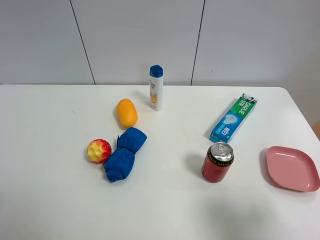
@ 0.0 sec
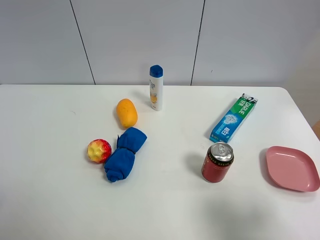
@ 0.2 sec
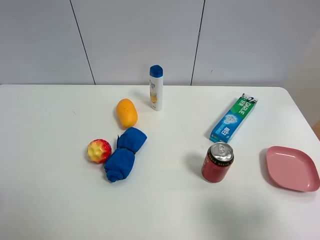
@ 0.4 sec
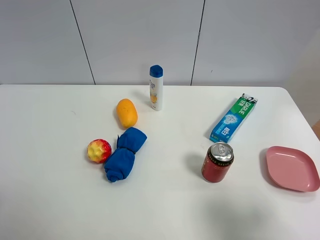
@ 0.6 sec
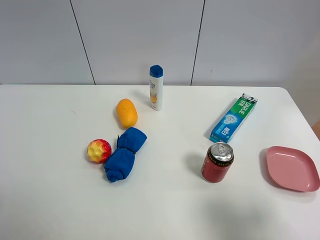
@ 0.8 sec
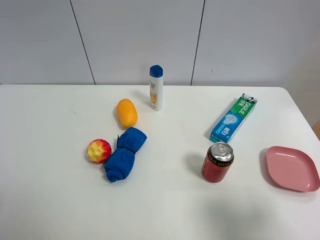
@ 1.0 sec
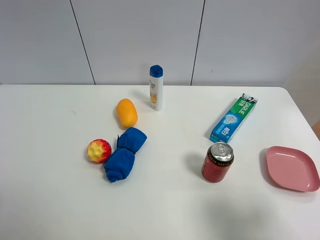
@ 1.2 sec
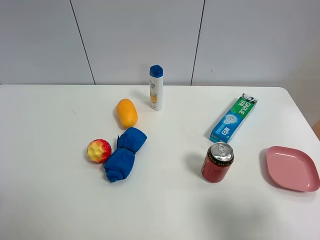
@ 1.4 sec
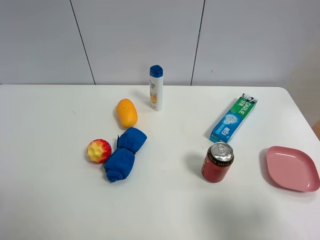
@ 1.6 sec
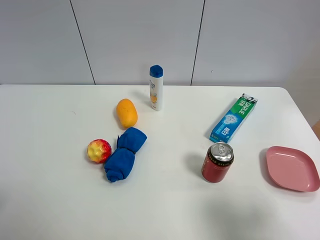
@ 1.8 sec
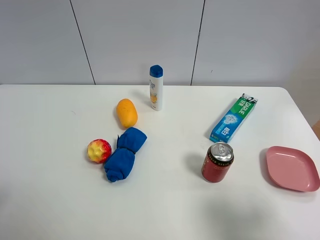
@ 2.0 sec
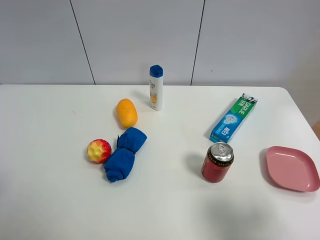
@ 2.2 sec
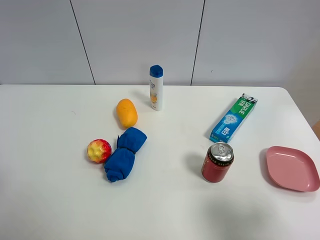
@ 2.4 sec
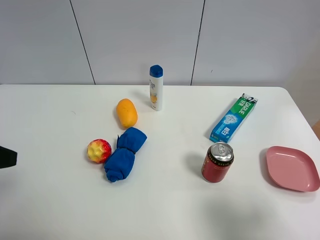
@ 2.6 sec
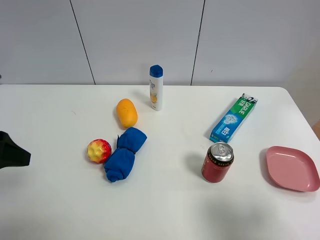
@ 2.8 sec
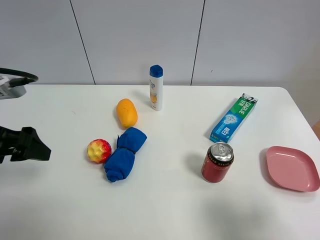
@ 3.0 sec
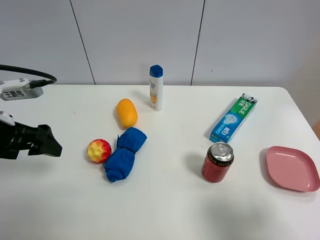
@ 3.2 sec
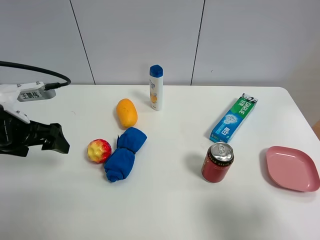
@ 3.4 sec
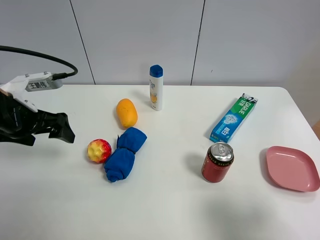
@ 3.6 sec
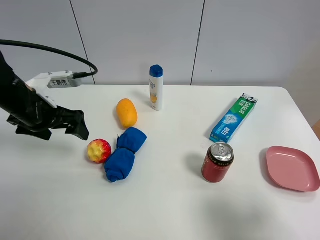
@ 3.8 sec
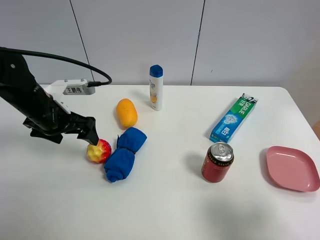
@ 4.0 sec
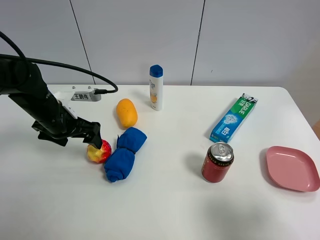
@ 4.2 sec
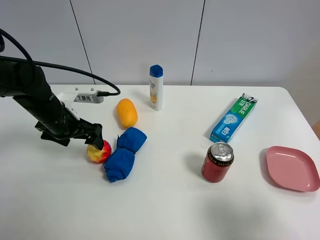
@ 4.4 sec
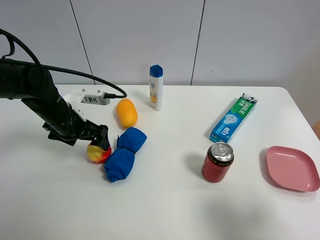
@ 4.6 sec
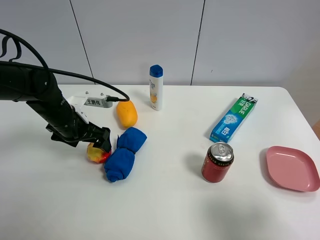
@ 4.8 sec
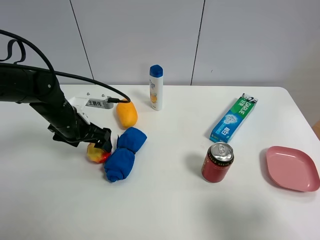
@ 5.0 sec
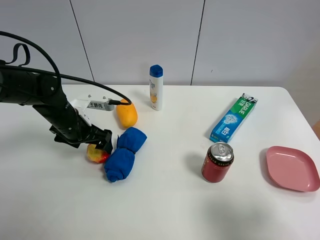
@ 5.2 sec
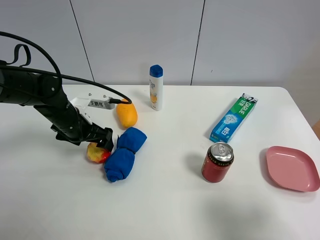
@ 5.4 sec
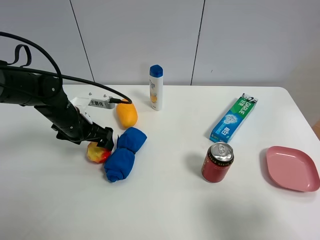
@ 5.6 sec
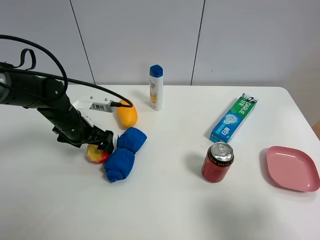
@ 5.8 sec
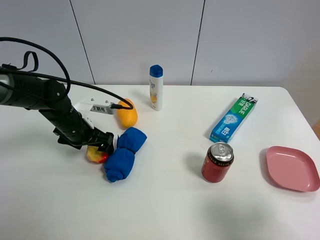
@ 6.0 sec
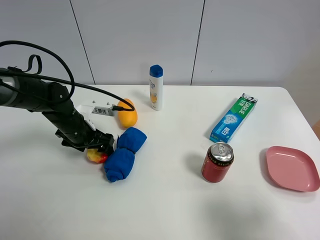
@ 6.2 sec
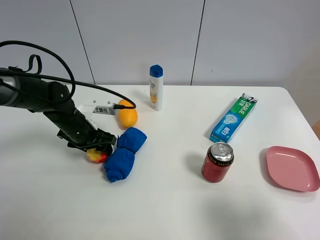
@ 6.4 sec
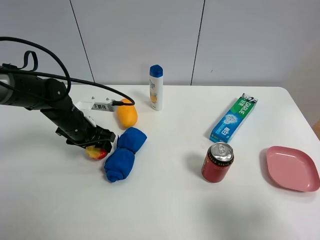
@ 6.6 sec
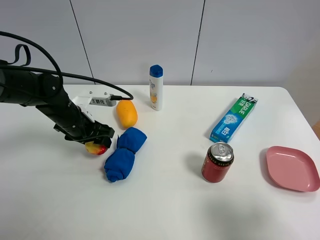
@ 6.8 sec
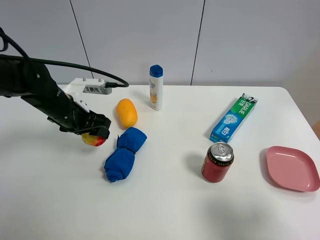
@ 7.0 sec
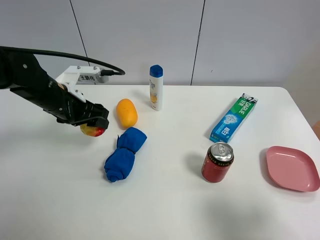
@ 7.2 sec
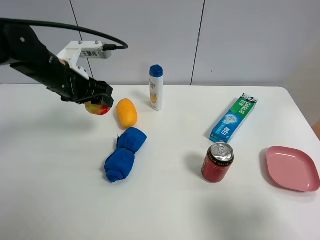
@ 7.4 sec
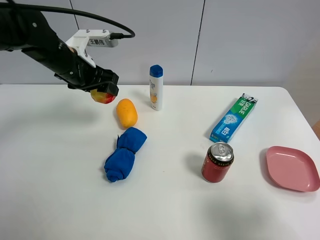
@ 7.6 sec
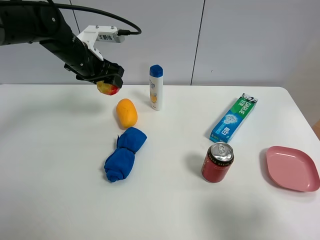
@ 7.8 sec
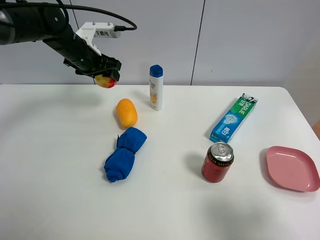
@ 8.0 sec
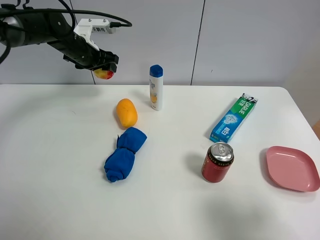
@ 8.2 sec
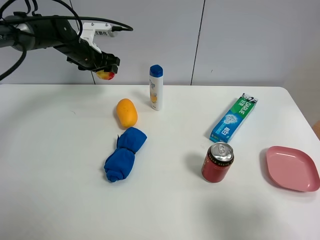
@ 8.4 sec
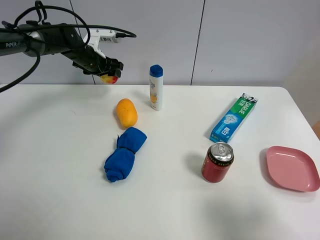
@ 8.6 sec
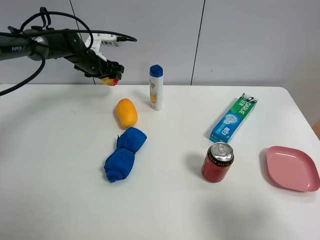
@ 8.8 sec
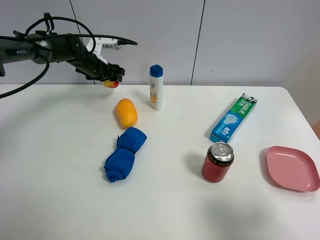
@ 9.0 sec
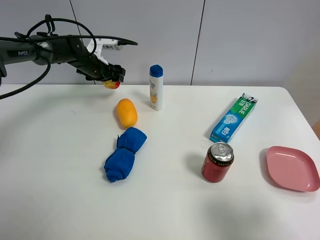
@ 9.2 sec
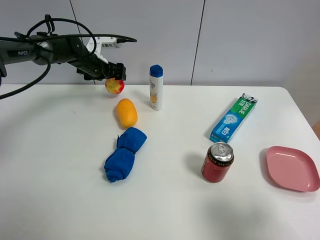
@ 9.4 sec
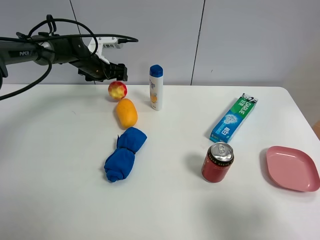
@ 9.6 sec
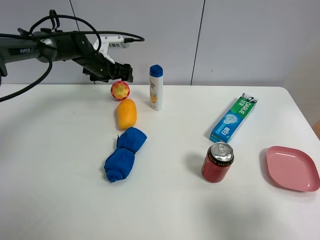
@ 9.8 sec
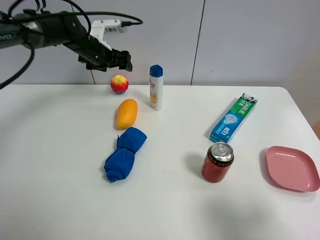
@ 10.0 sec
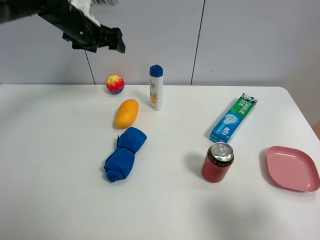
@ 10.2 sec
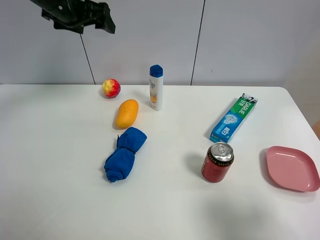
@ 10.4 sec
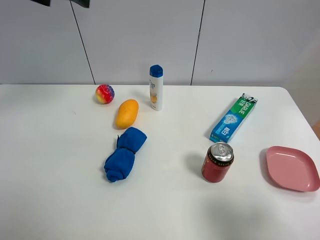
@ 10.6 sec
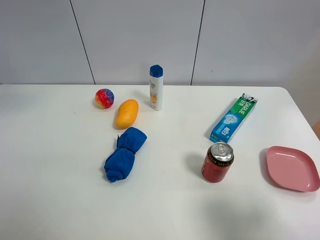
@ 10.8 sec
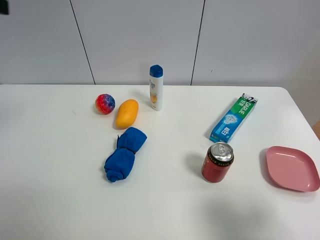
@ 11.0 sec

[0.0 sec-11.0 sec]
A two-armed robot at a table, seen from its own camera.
Task of the whole recording: the gripper move the object.
Step, 0.0 sec to 6.2 sec: Grasp the colorful ball with the left gripper.
Step, 6.4 sec to 9.6 sec: Place the colorful ball on the table with the left gripper.
0.0 sec to 1.6 sec: Both grippers stay about where they are.
1.6 sec to 3.2 sec: The left gripper shifts some 20 cm forward.
3.2 sec to 4.8 sec: The left gripper goes about 15 cm forward, downward and to the right.
4.8 sec to 6.2 sec: The left gripper closes its fingers.
6.2 sec to 7.8 sec: The left gripper is displaced upward and forward by roughly 15 cm, and closes its fingers.
7.8 sec to 9.4 sec: The left gripper is displaced forward and downward by approximately 15 cm, and opens its fingers.
9.4 sec to 11.0 sec: The left gripper is displaced backward and upward by about 40 cm.

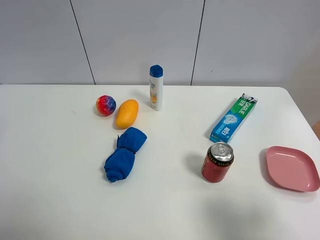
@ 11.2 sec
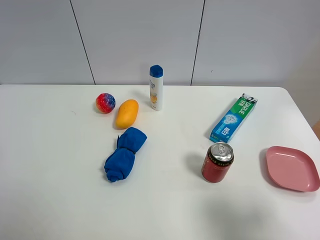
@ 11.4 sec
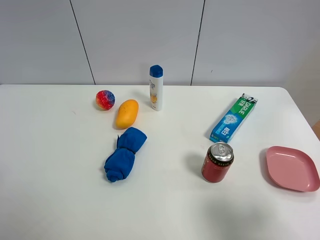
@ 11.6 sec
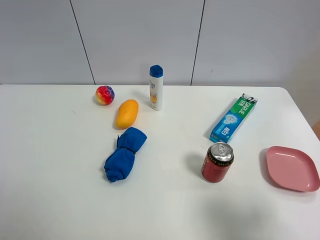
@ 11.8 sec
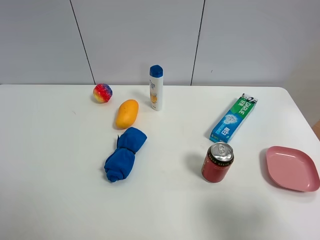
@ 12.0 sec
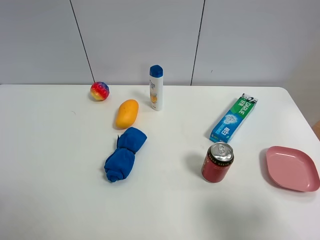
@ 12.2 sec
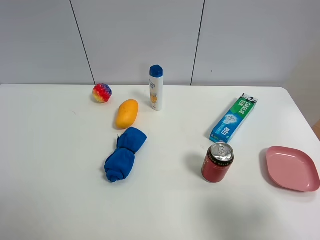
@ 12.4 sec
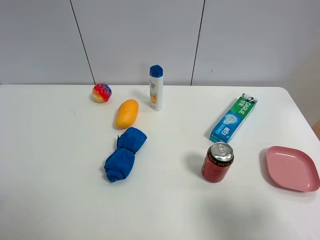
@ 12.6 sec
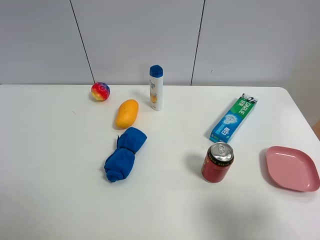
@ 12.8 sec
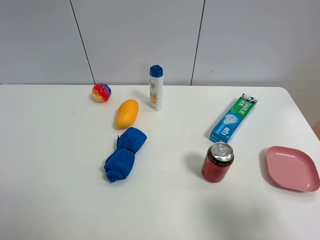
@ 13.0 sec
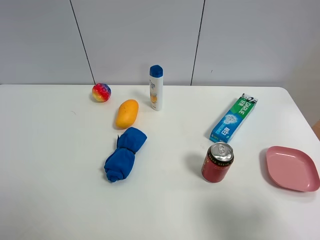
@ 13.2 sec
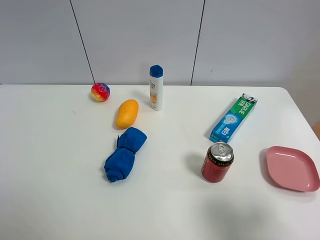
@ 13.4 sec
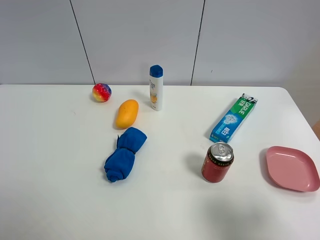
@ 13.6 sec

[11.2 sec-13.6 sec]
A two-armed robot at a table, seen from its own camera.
Task of the whole recording: the gripper move the object.
11.2 sec to 12.4 sec: The left gripper is displaced backward and downward by some 20 cm.

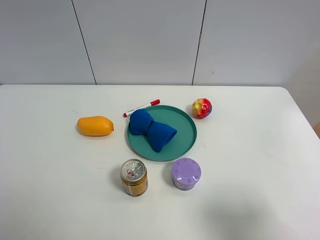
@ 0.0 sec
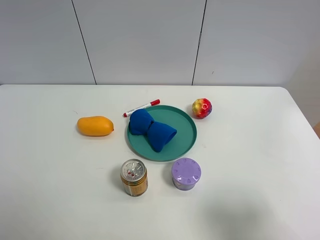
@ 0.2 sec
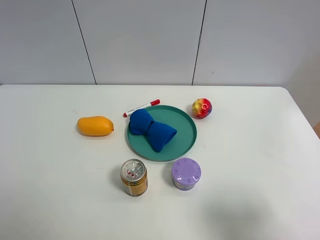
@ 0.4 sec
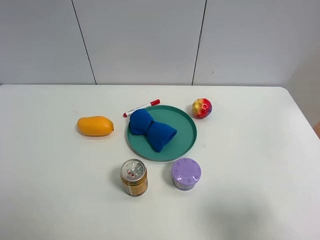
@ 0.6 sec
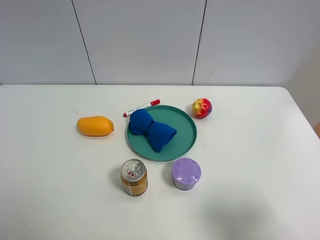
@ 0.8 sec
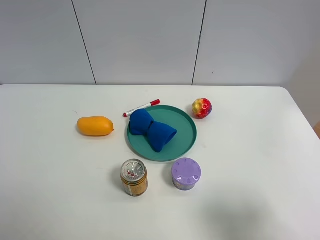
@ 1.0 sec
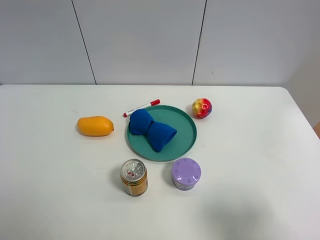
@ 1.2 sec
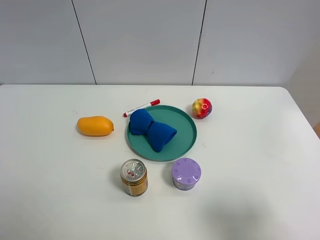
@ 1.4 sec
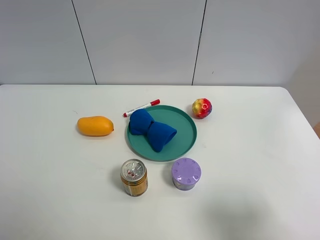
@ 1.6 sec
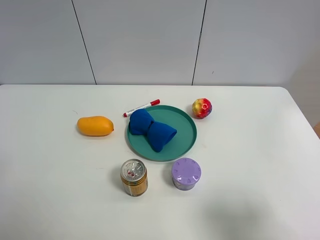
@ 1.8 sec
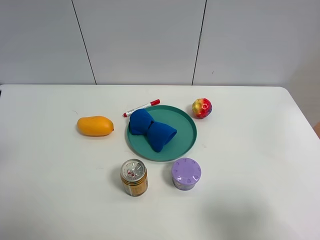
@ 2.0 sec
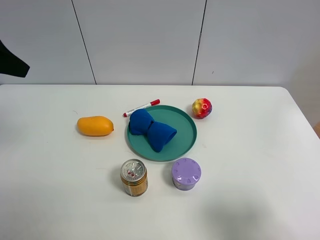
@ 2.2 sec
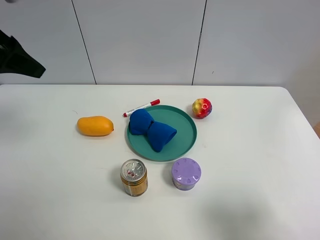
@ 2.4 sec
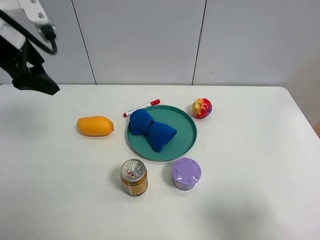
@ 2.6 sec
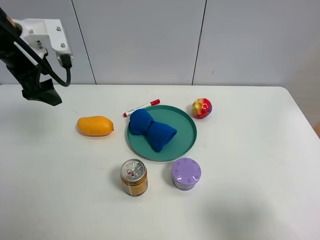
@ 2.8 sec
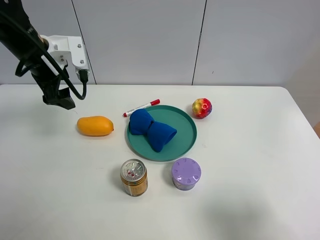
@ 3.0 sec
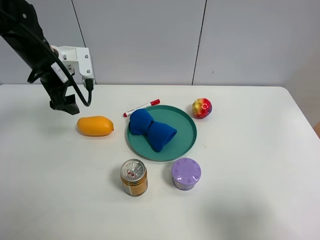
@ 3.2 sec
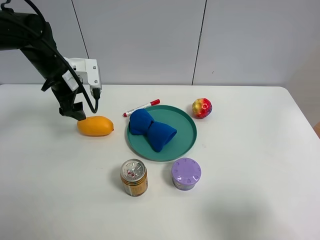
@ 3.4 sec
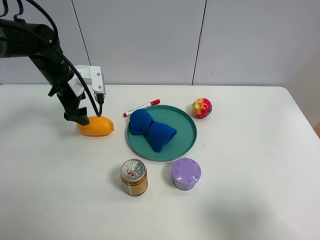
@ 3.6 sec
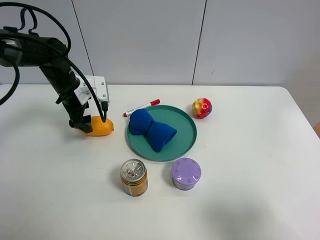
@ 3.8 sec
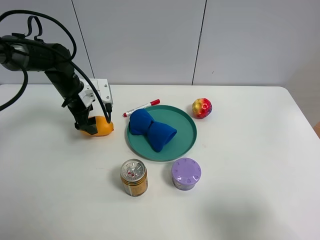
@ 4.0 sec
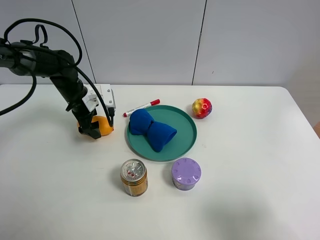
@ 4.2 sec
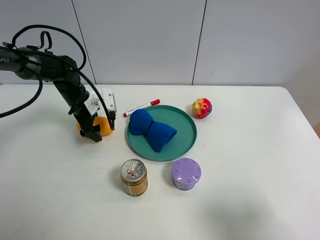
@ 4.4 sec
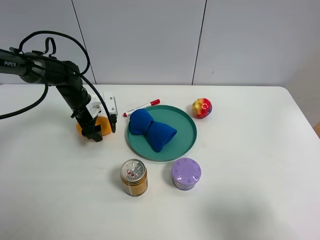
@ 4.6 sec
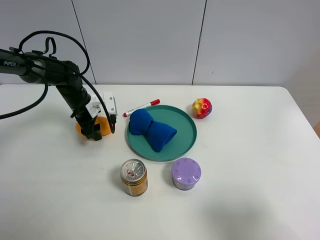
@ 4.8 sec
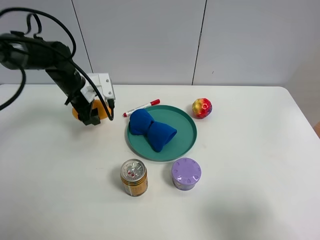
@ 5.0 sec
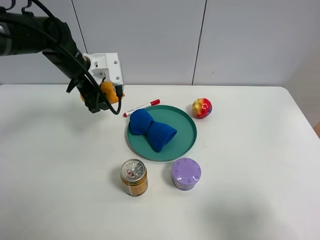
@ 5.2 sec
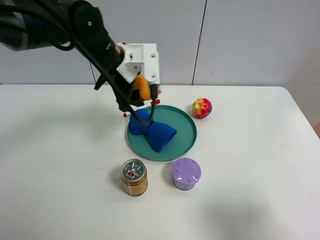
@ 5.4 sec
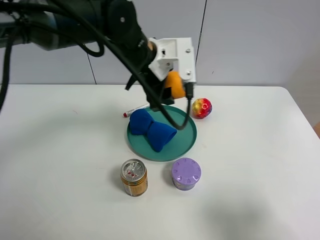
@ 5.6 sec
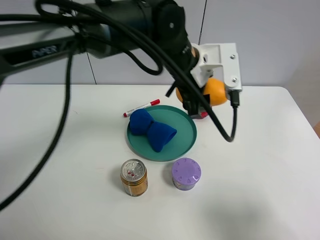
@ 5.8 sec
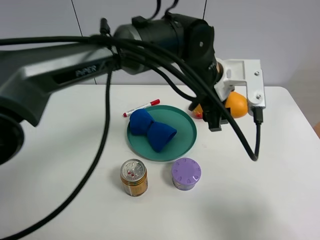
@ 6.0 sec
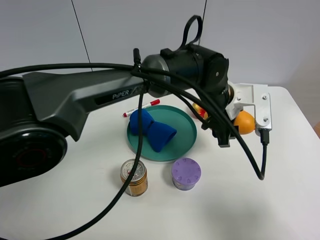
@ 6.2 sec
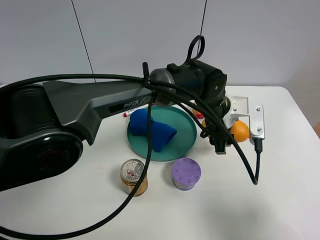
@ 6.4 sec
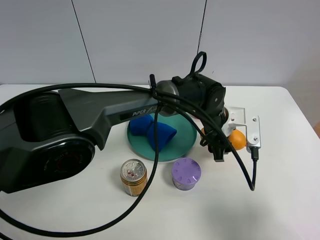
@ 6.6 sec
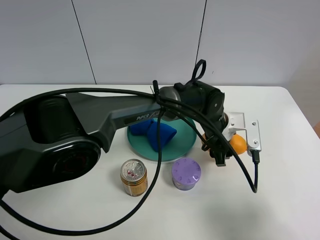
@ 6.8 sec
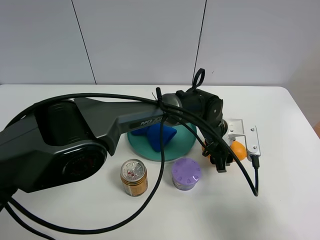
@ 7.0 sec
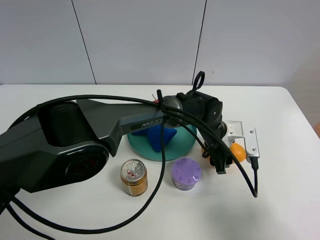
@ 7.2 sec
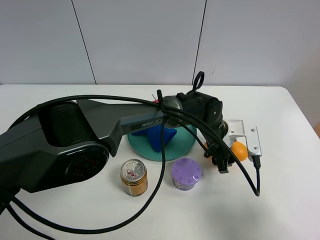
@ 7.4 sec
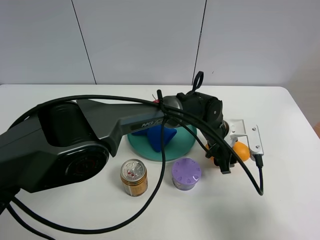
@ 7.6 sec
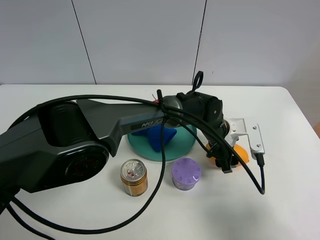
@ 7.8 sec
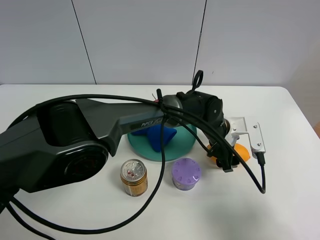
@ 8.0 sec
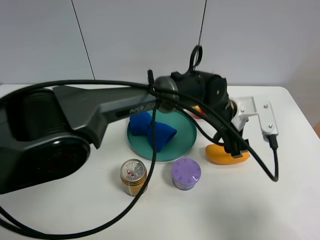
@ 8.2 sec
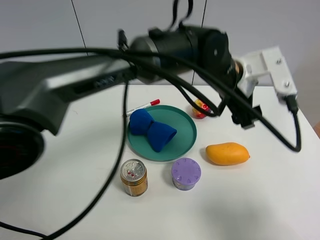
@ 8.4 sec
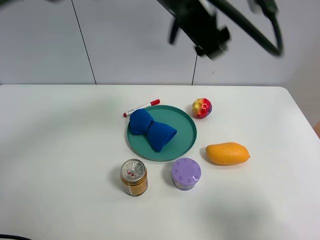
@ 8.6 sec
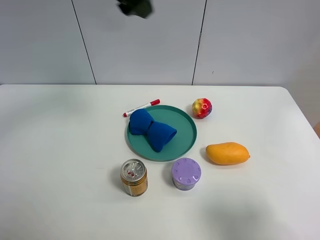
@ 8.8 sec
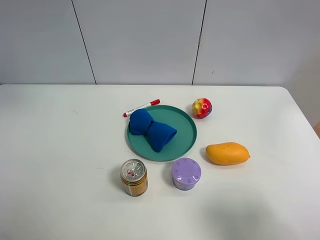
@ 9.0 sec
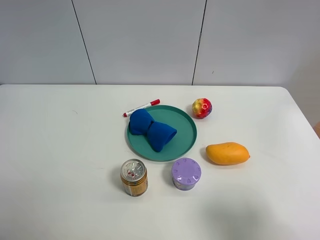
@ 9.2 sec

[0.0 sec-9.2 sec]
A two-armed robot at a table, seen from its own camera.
Task of the whole recording: the gripper move the object.
Step, 0.0 sec to 4.8 sec: Grasp the mango with the left gripper.
Step, 5.0 sec to 8.0 sec: Place the mango on the table with the left gripper.
1.6 sec to 3.0 sec: The left gripper travels forward by approximately 30 cm.
3.0 sec to 4.6 sec: The left gripper moves downward, some 15 cm, and closes its fingers.
4.6 sec to 6.2 sec: The left gripper heads to the right, covering roughly 35 cm.
6.2 sec to 7.6 sec: The left gripper shifts roughly 10 cm downward.
7.6 sec to 9.2 sec: The left gripper shifts about 60 cm to the left and upward, and opens up.
